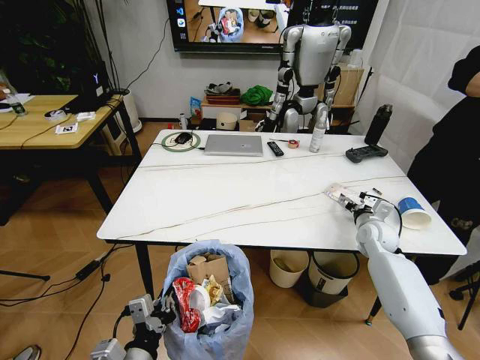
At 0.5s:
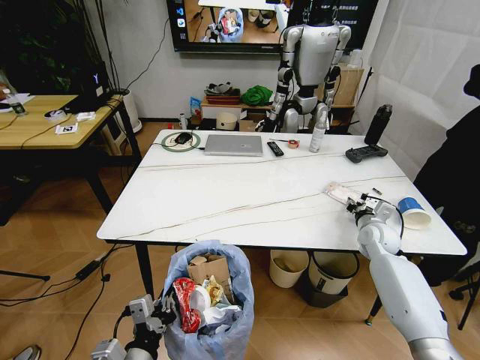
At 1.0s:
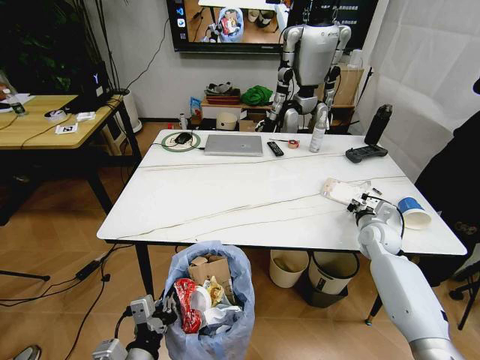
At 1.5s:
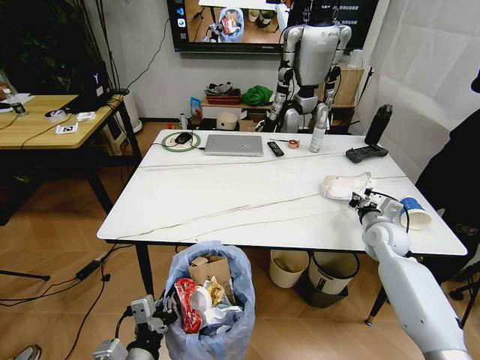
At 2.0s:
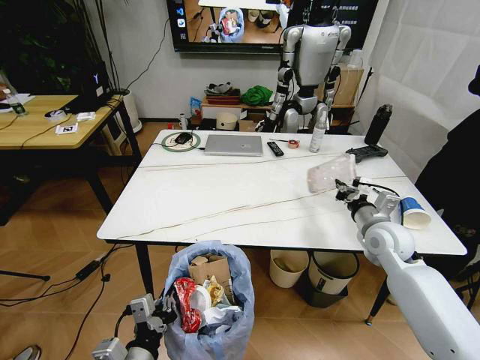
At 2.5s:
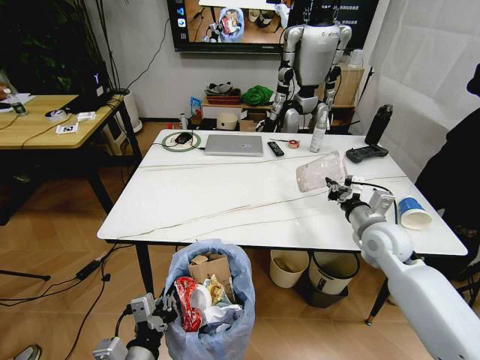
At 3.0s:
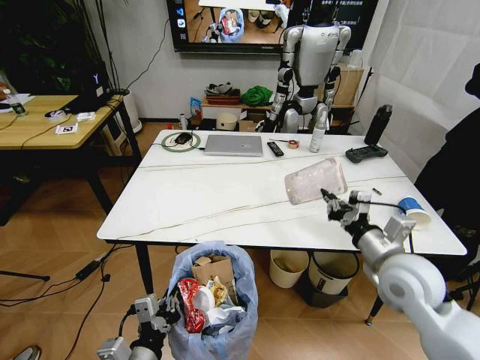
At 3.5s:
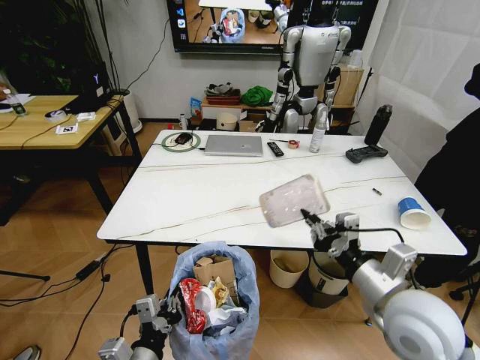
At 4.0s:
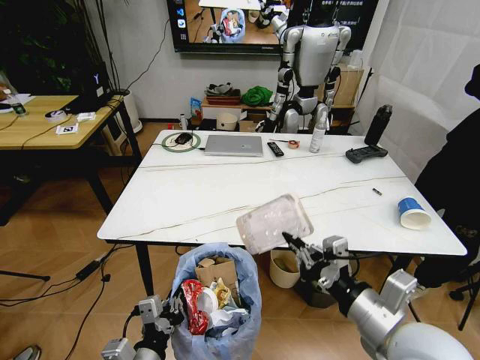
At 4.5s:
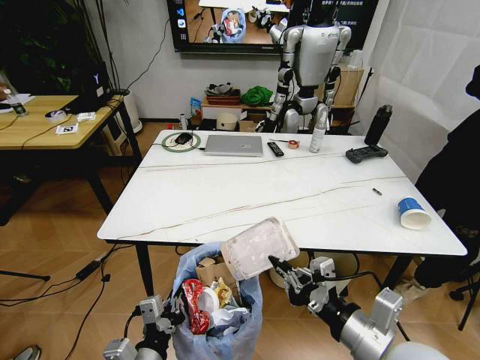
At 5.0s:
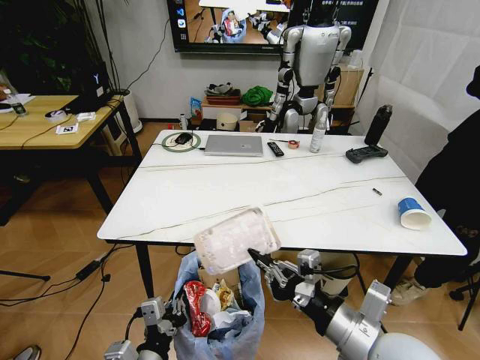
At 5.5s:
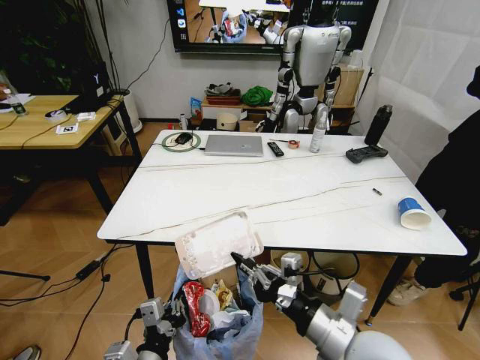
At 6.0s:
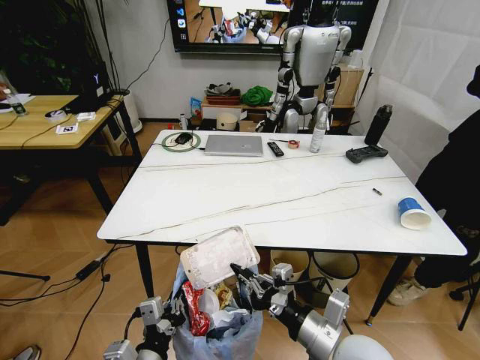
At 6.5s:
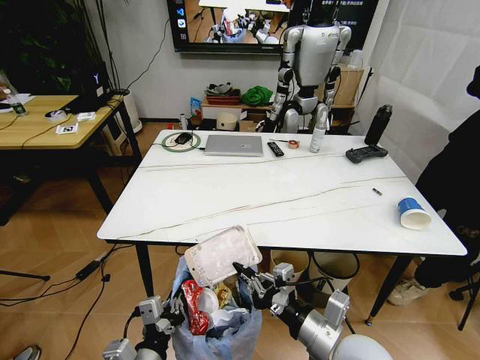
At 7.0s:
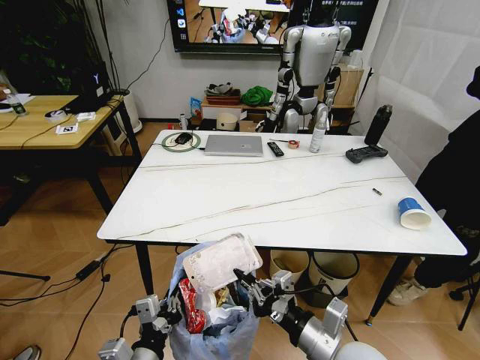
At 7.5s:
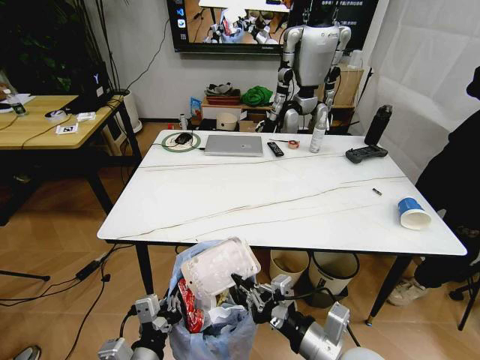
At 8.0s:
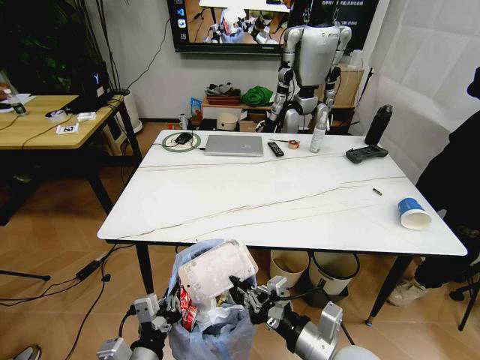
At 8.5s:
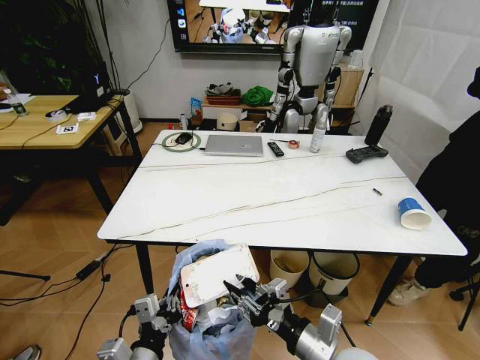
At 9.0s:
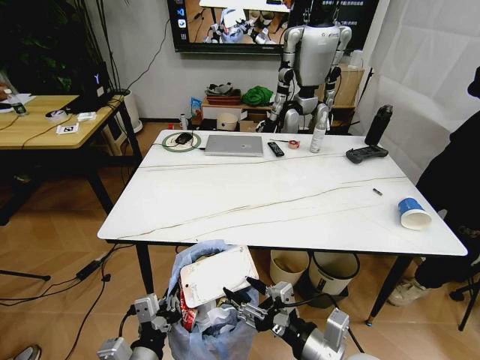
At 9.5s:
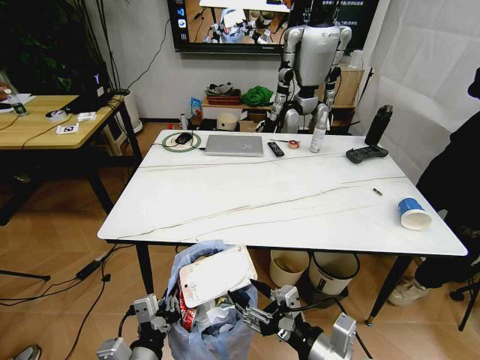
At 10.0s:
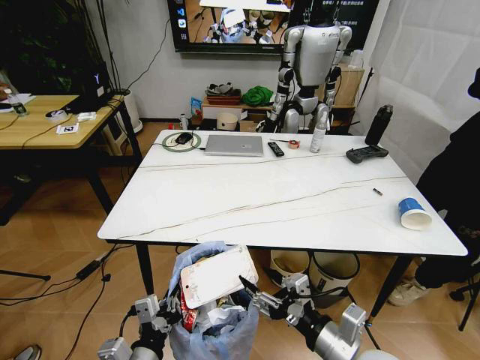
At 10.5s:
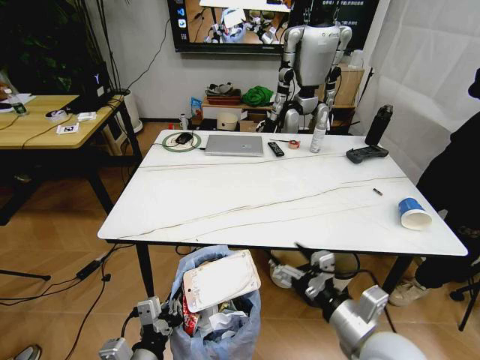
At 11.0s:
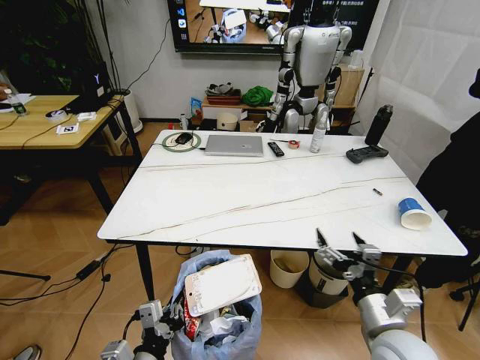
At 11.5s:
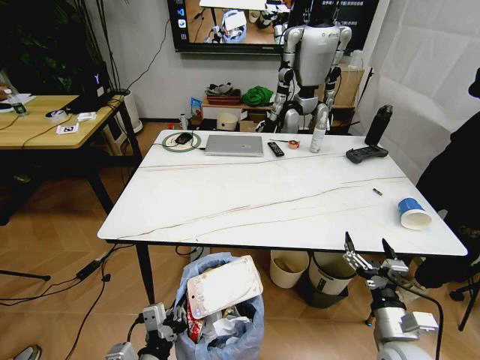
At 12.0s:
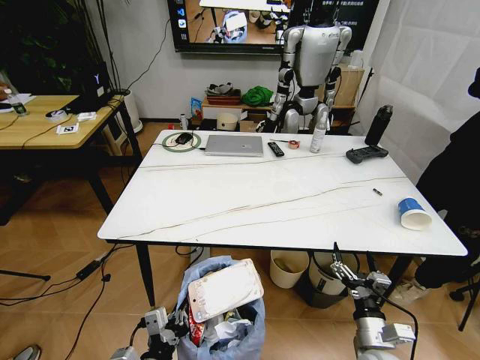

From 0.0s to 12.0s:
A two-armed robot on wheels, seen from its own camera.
Task of the whole recording: Pick up the trash bin and place the trash from the table into it.
From 0.0s to 2.0s: The right gripper moves upward and backward, roughly 10 cm, and closes up.
From 2.0s to 4.0s: The right gripper moves backward and to the left, roughly 25 cm.
From 4.0s to 6.0s: The right gripper shifts approximately 10 cm downward and to the left.
From 6.0s to 8.0s: The grippers stay close to where they were, moving slightly.
From 8.0s to 10.0s: The right gripper opens.
From 10.0s to 12.0s: The right gripper travels downward and to the right by some 15 cm.

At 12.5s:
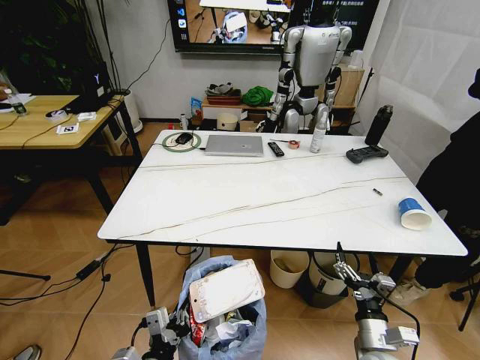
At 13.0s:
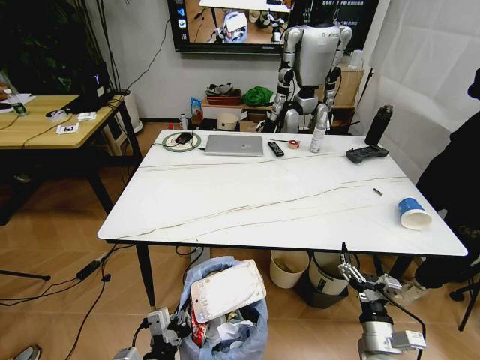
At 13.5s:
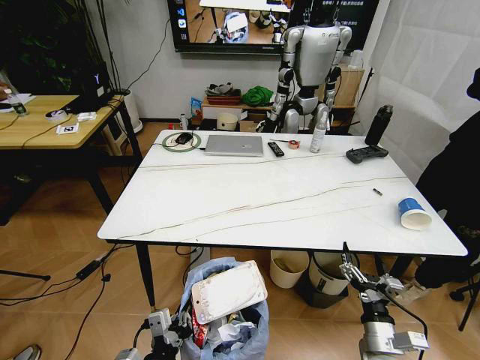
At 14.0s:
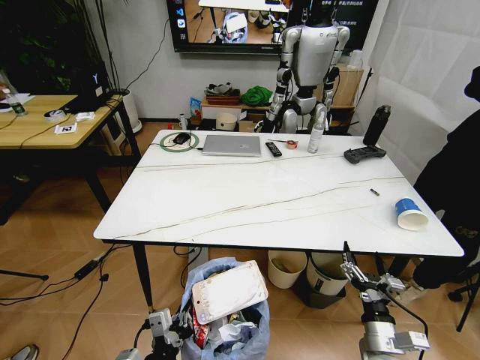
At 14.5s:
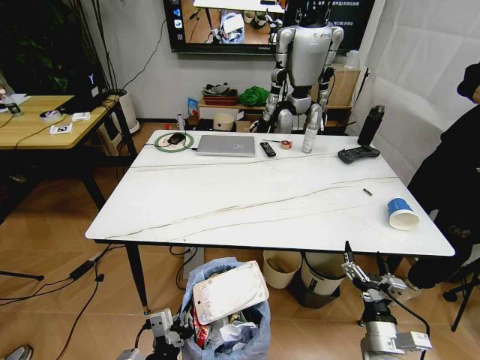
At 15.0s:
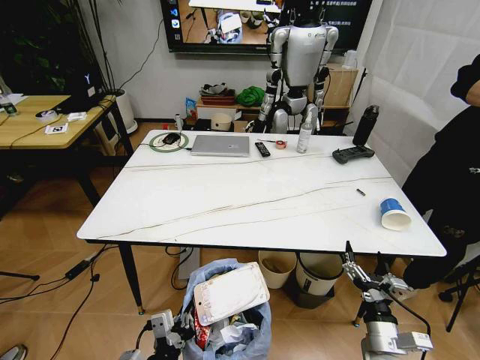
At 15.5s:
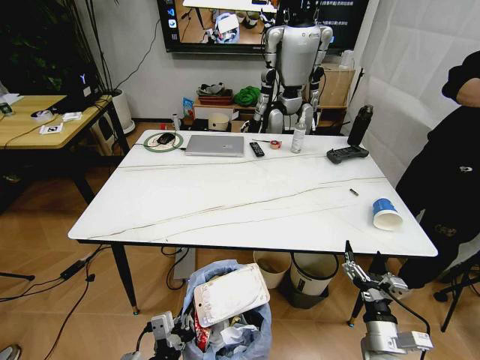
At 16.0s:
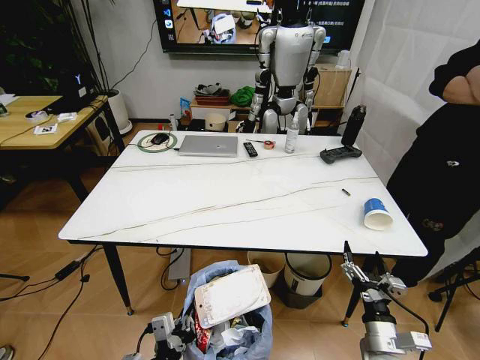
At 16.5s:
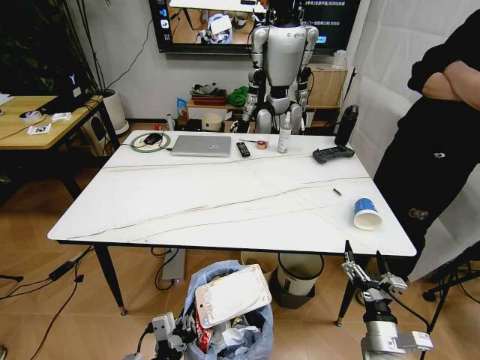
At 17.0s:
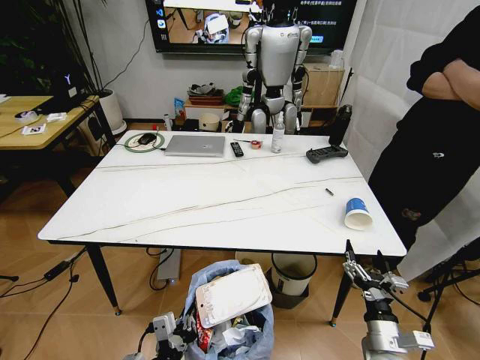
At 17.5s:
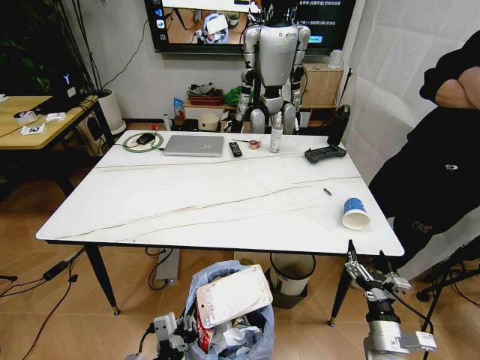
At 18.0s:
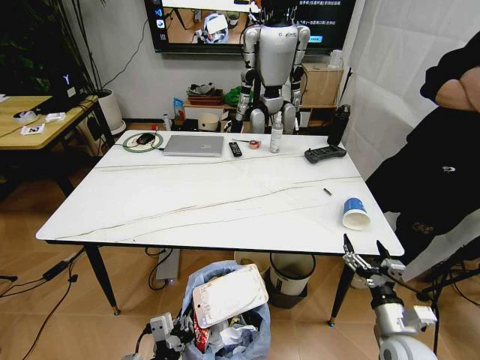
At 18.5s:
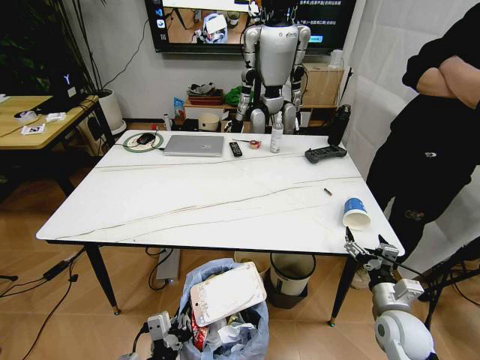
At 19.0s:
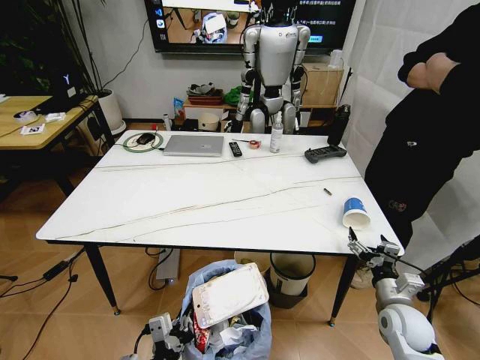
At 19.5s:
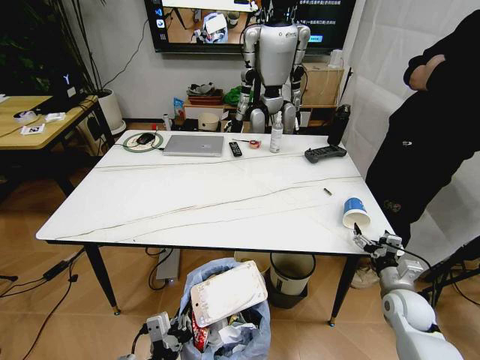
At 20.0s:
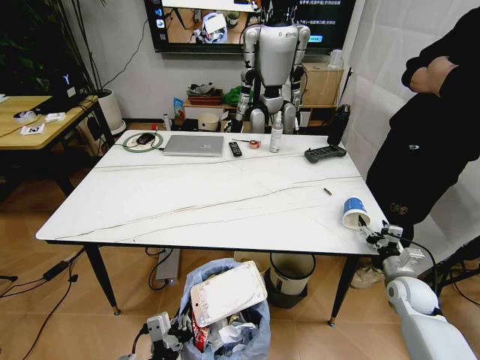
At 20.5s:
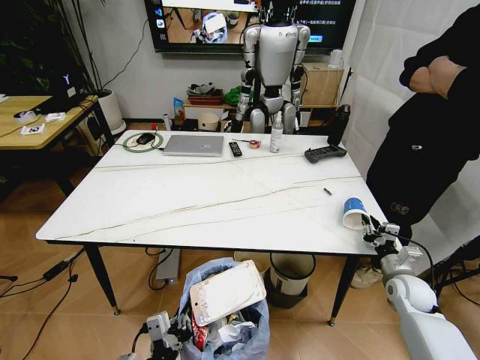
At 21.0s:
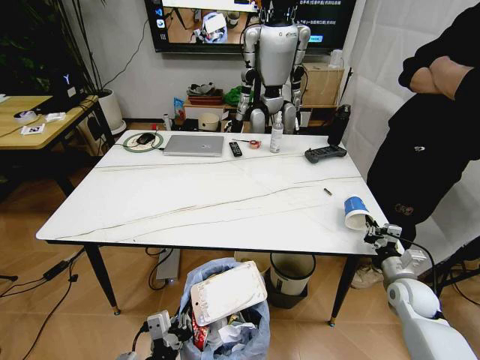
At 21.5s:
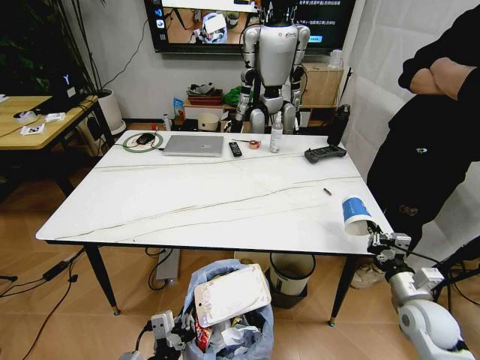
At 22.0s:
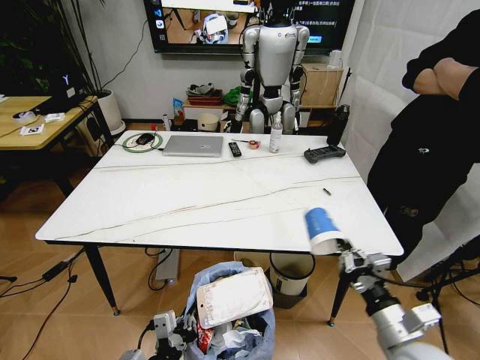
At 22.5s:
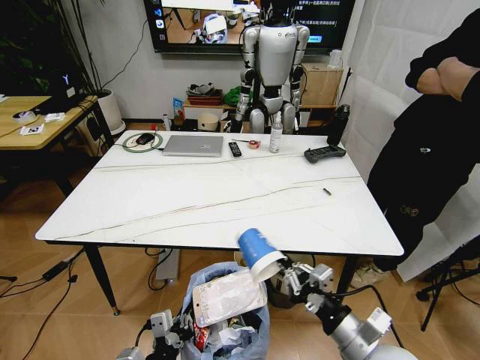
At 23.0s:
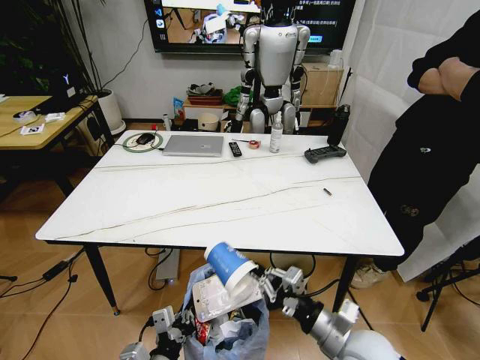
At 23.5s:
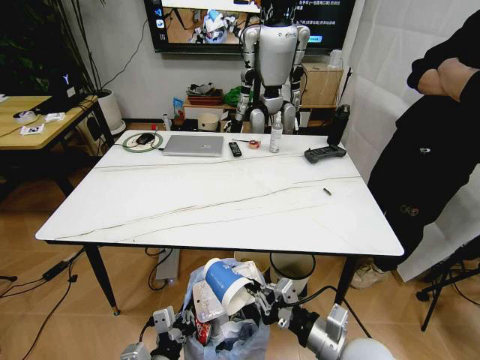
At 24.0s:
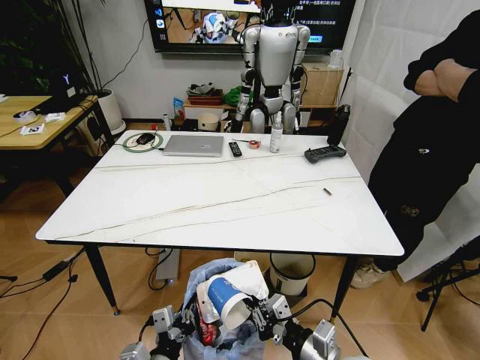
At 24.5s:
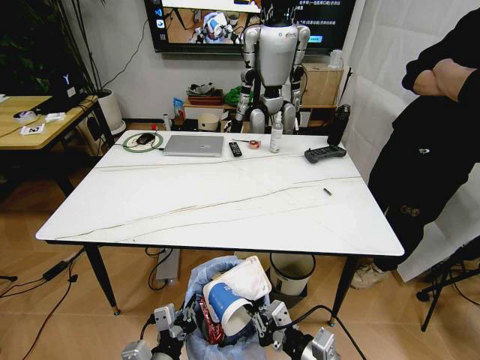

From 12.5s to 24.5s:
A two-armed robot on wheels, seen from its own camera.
Task of the whole recording: Pick up the trash bin and place the trash from the table into it.
From 16.5s to 18.5s: The right gripper moves forward, some 10 cm.
From 18.5s to 20.5s: The right gripper goes roughly 15 cm forward and to the right, and closes its fingers.
From 20.5s to 22.5s: The right gripper travels to the left, backward and upward by about 30 cm.
From 22.5s to 24.5s: The right gripper goes roughly 5 cm to the left.

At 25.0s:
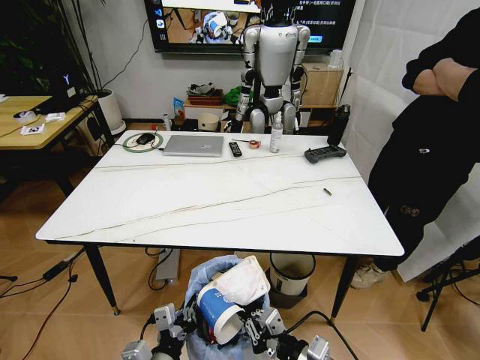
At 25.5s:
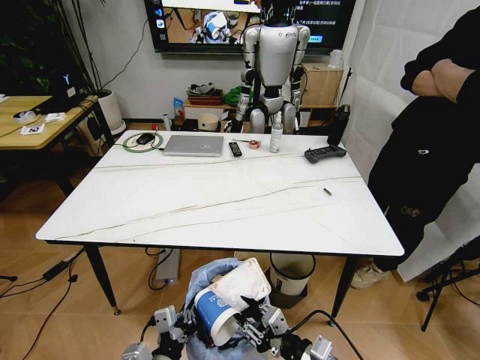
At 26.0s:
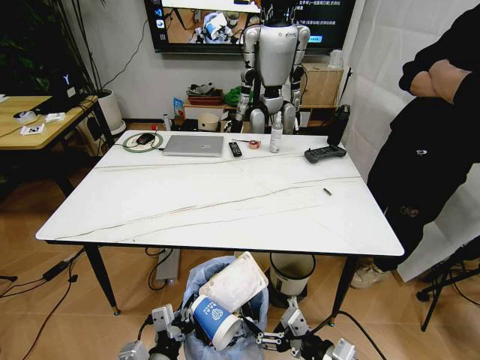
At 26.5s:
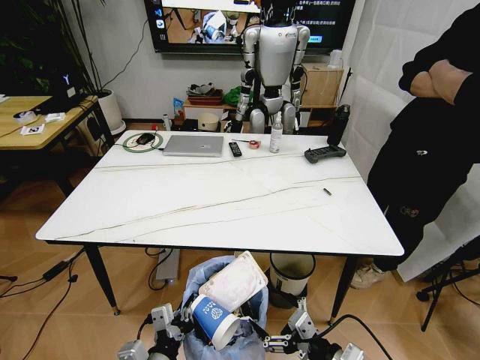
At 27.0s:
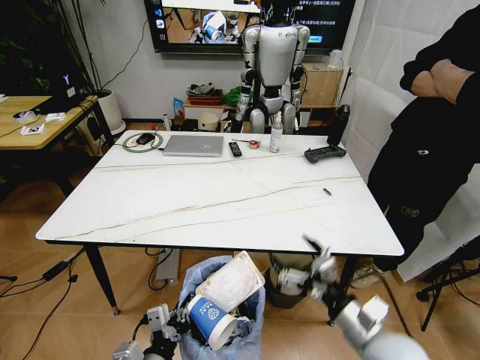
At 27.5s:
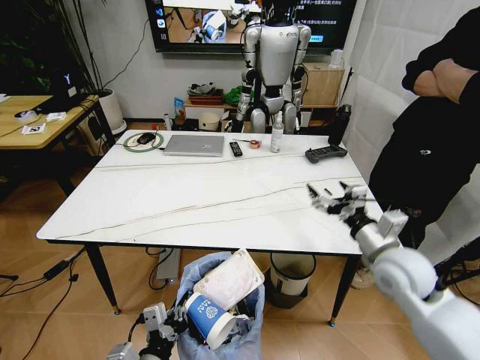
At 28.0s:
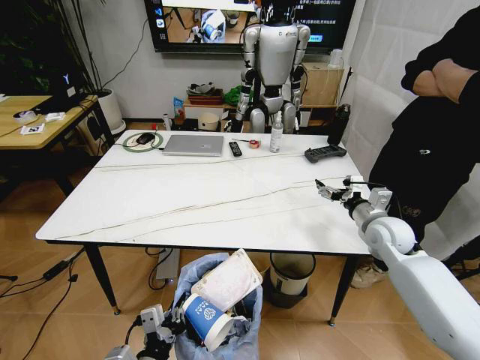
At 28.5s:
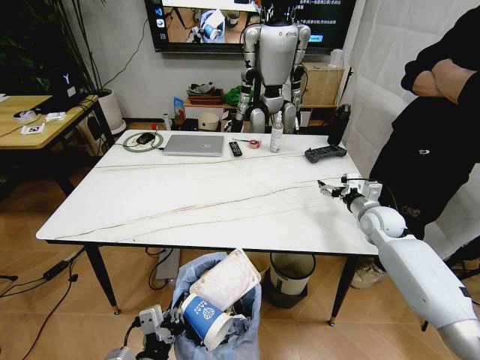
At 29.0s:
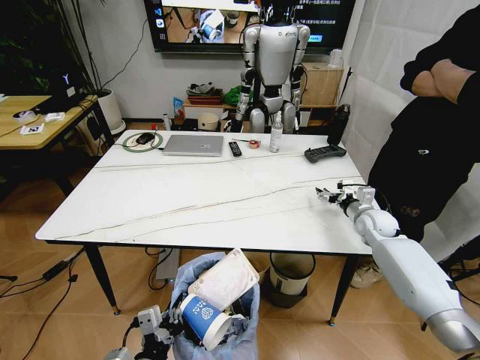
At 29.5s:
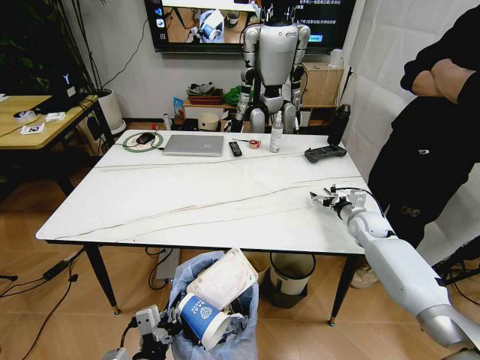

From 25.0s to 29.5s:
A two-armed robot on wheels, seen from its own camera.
Task of the whole recording: Pick up the trash bin and place the trash from the table into it.
From 25.0s to 27.0s: The right gripper goes roughly 10 cm to the right, upward and forward, and opens its fingers.
From 27.0s to 29.5s: The right gripper is displaced forward by about 35 cm.
